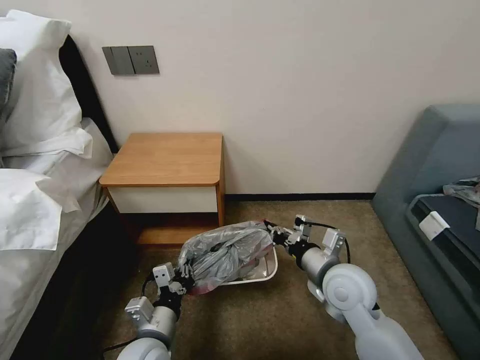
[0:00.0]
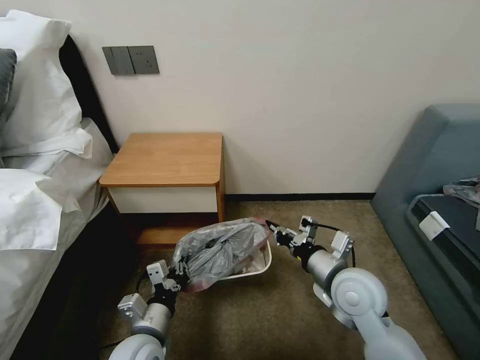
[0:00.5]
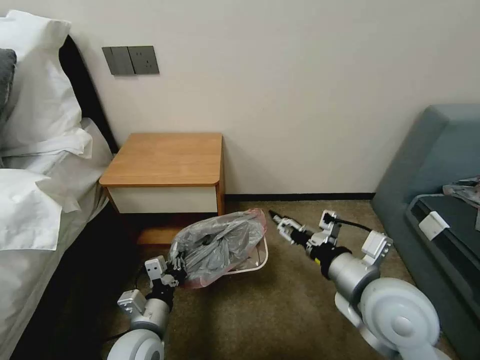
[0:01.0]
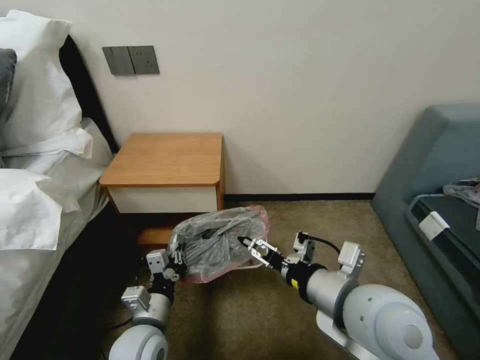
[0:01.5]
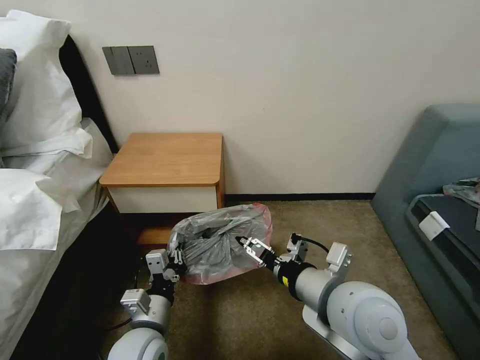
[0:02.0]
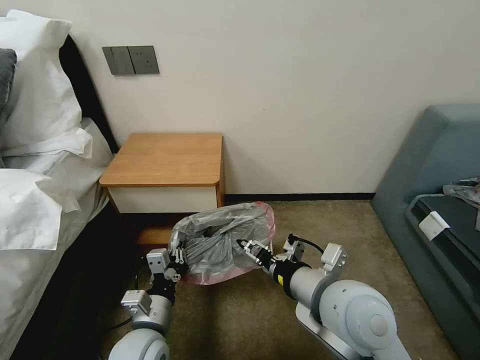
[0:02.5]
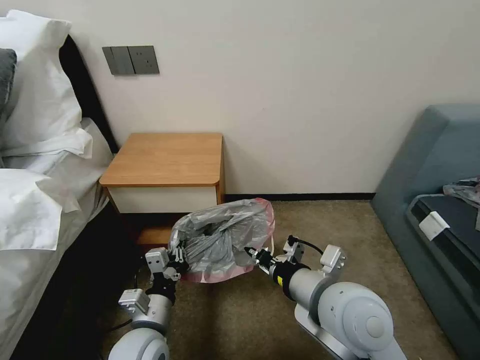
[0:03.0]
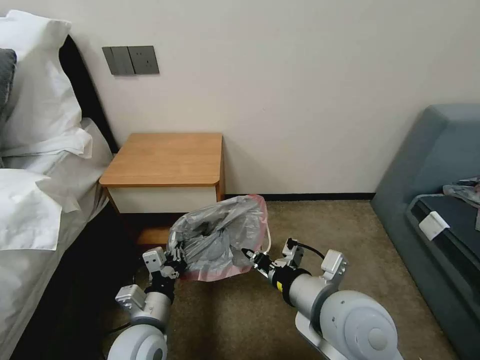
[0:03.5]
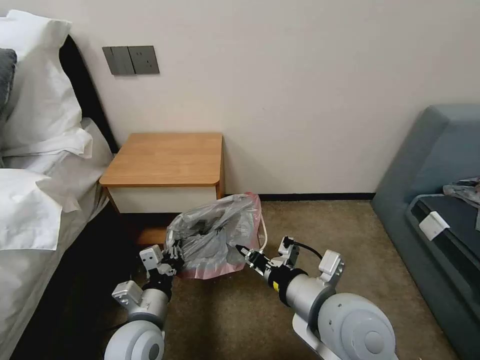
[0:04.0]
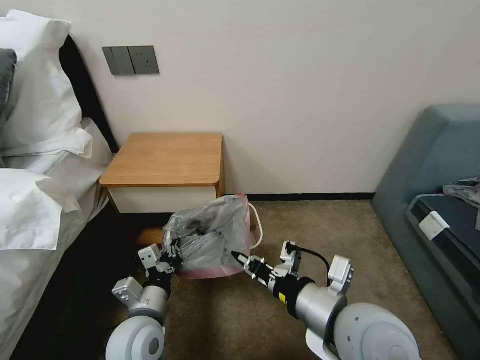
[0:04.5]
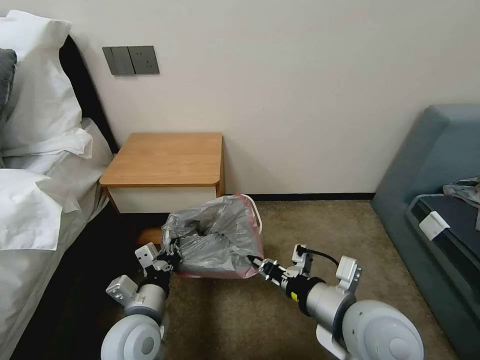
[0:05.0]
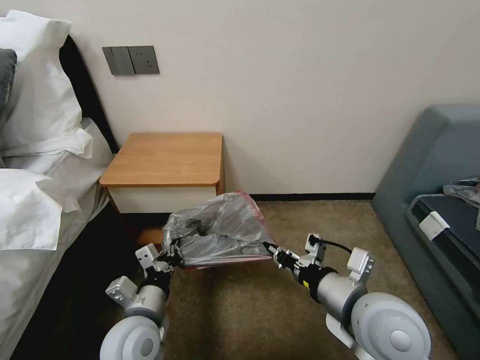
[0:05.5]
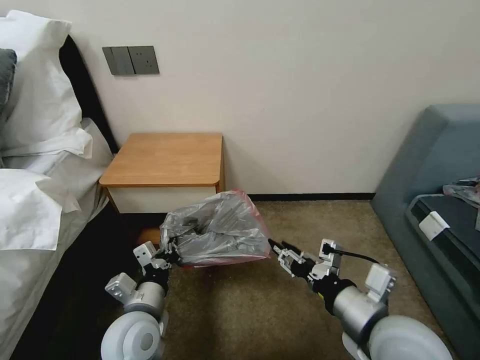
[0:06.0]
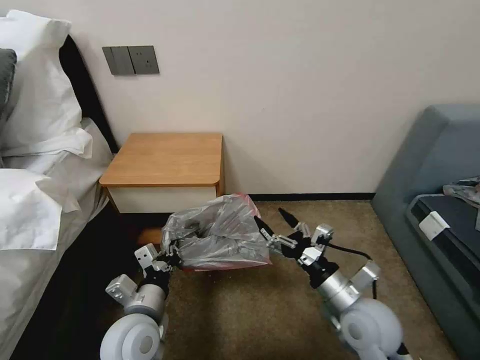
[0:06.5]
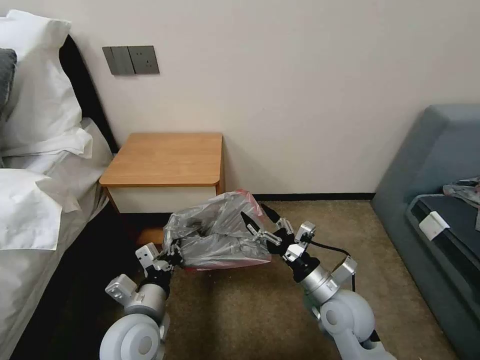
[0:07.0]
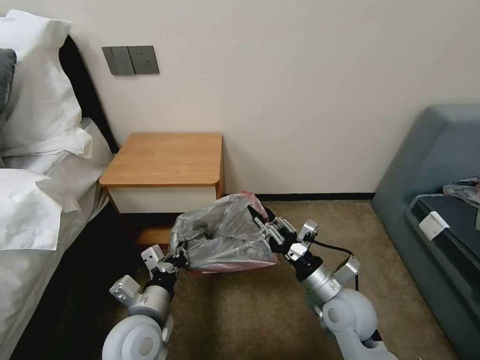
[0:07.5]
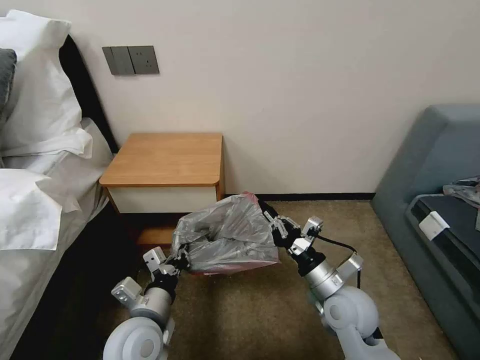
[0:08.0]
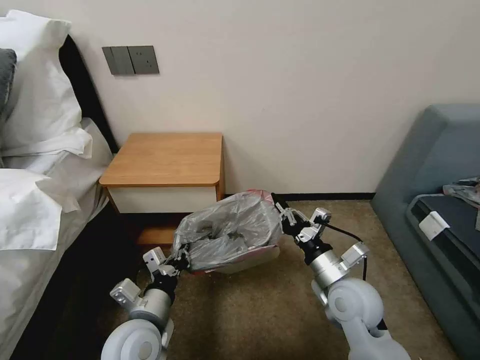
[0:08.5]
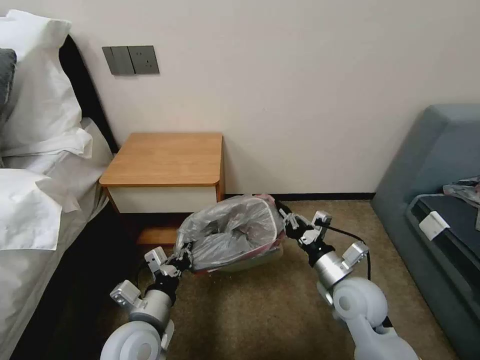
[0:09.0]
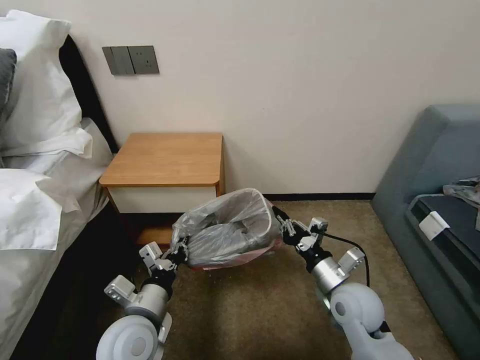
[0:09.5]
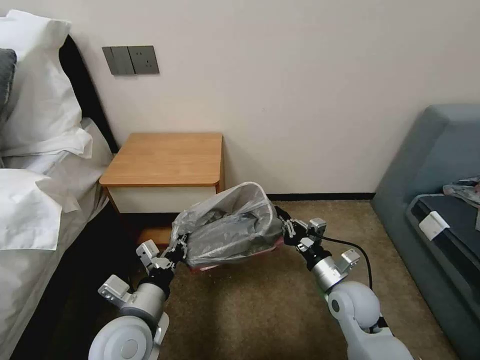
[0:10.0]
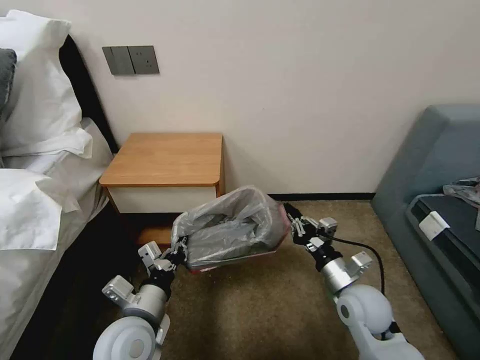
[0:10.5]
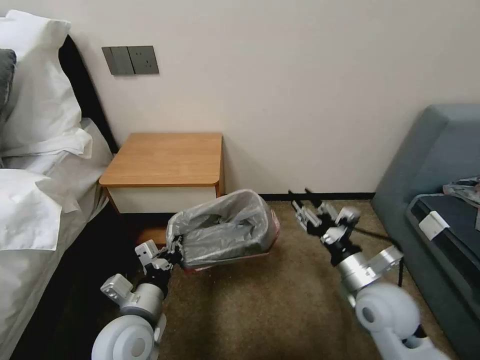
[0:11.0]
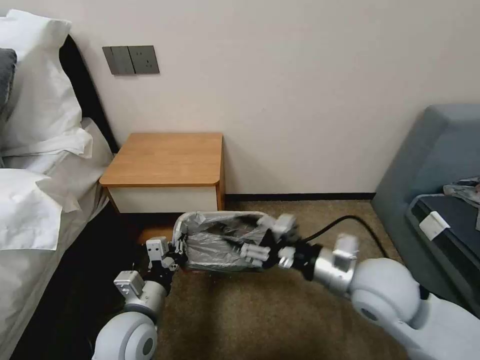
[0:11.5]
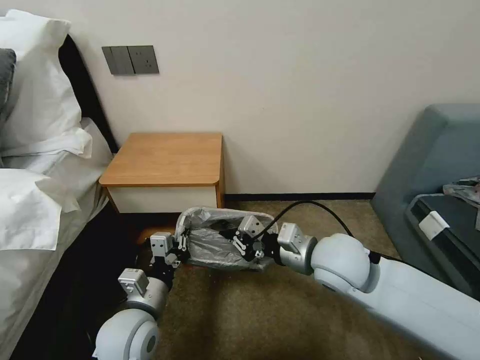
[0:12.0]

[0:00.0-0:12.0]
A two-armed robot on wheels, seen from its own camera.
Task of the whole recording: Pick up the garbage bag from the table and place it over the trash can.
0:00.0 to 0:02.0: The right gripper goes about 10 cm upward and backward, and opens.
0:02.0 to 0:04.0: The right gripper closes.
0:04.0 to 0:06.0: The right gripper moves to the right, about 5 cm, and opens up.
0:06.0 to 0:08.0: The right gripper travels downward and forward by roughly 15 cm, and closes up.
0:08.0 to 0:10.0: The right gripper shifts by about 5 cm.
0:10.0 to 0:12.0: The right gripper shifts about 15 cm upward and to the left, and opens, then closes once more.

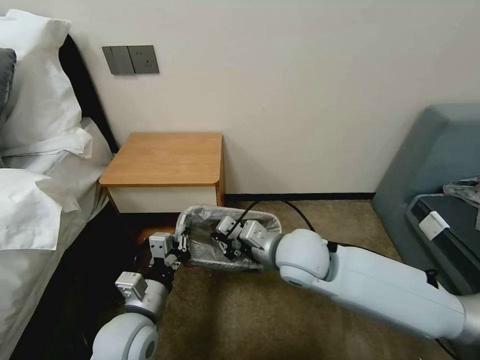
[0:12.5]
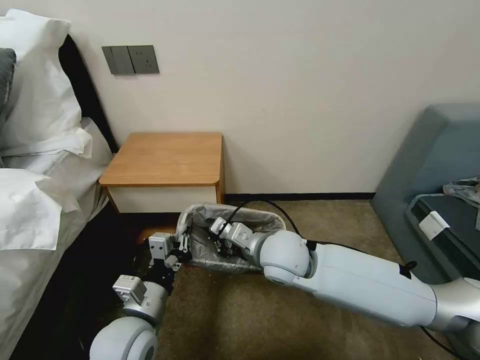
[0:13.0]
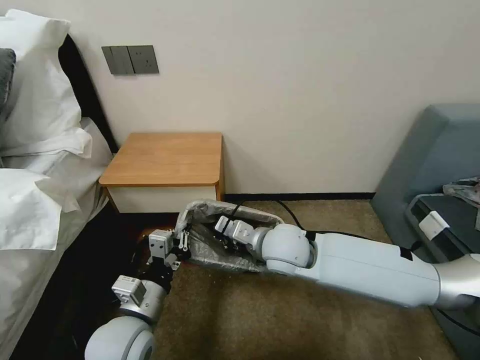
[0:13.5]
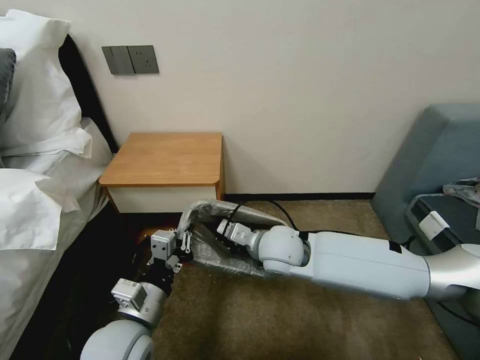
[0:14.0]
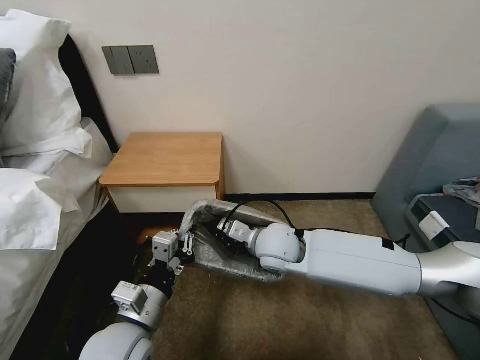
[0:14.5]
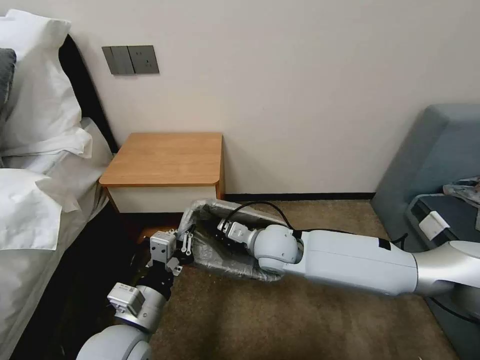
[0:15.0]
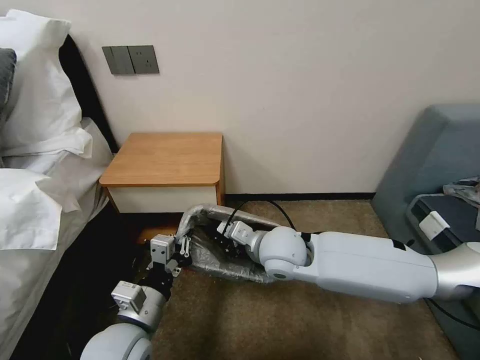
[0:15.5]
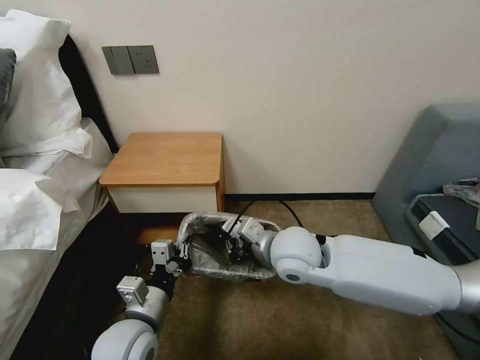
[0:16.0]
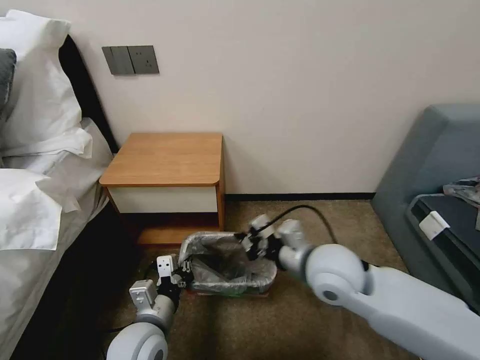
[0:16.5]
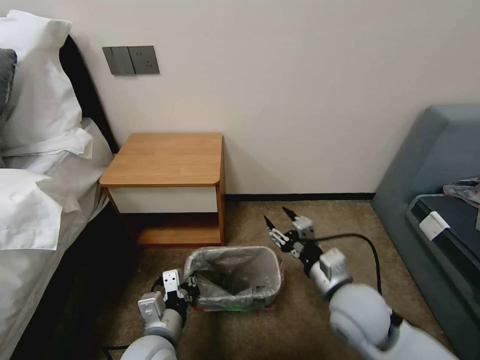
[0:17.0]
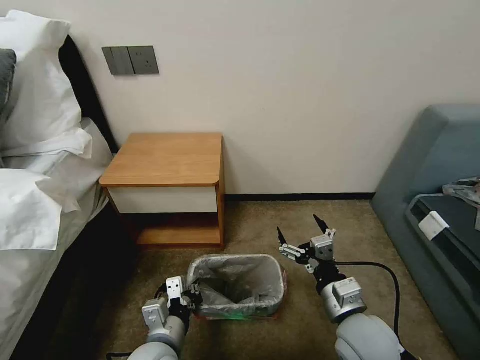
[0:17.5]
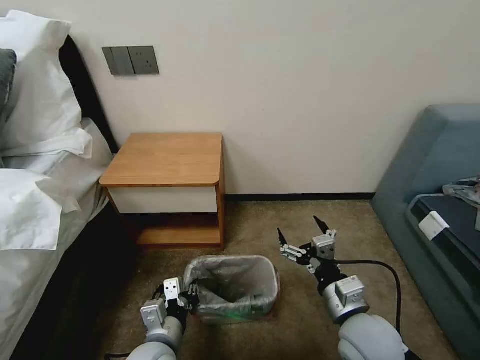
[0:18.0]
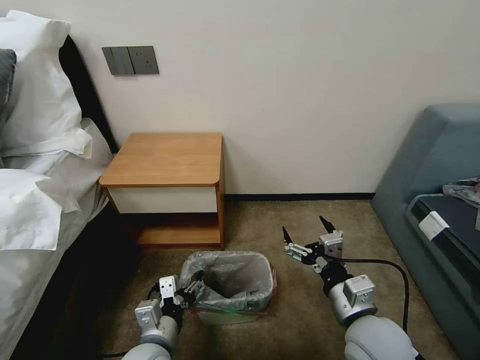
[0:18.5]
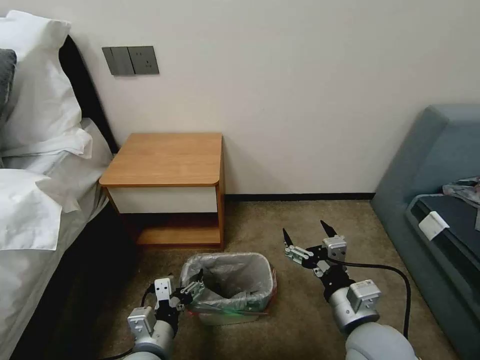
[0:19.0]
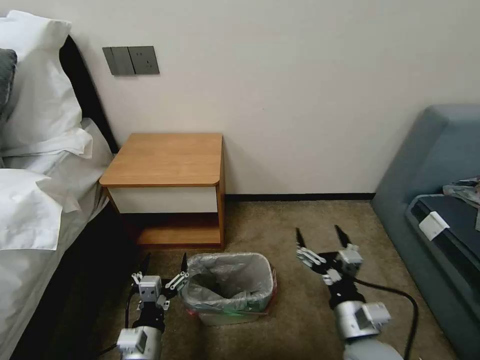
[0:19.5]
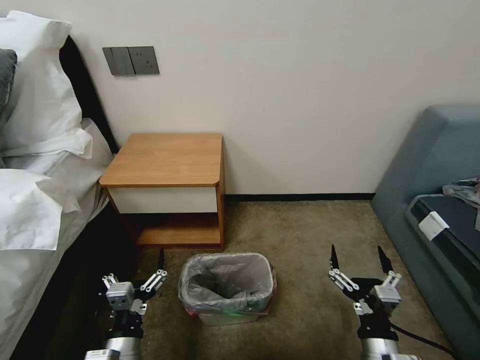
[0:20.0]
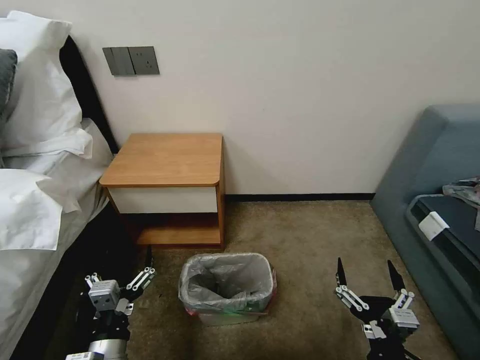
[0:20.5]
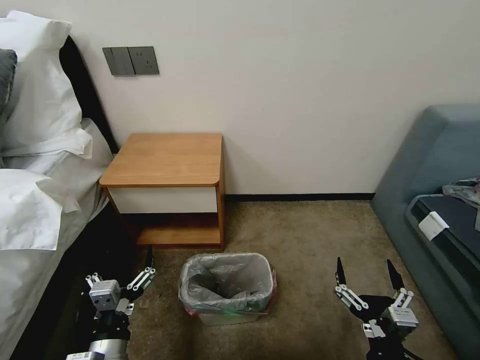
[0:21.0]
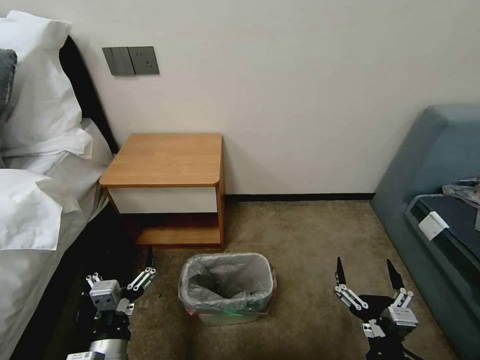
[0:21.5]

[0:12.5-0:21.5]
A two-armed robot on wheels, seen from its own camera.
Task of the whole recording: Pick up the garbage bag from the table and place it over the trash can.
0:12.5 to 0:14.5: The right gripper heads forward and downward, covering some 5 cm.
0:14.5 to 0:17.0: The right gripper heads to the right and backward, covering some 20 cm, and opens its fingers. The left gripper shifts some 5 cm downward.
0:17.0 to 0:19.5: The right gripper moves backward, roughly 10 cm, and opens. Meanwhile the left gripper moves downward, approximately 5 cm, and opens up.
0:19.5 to 0:21.5: The left gripper shifts by roughly 5 cm. Meanwhile the right gripper moves backward, some 10 cm.
